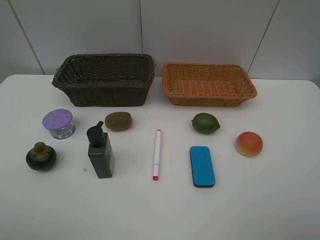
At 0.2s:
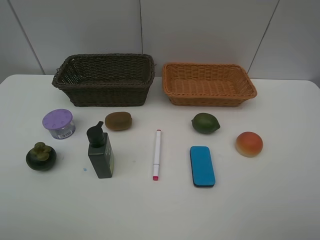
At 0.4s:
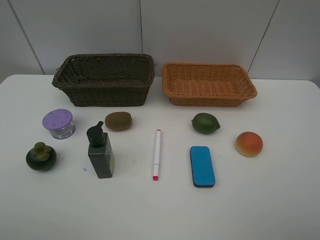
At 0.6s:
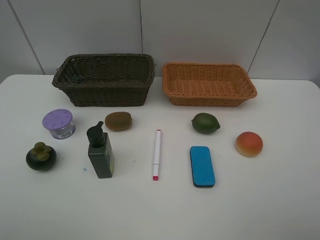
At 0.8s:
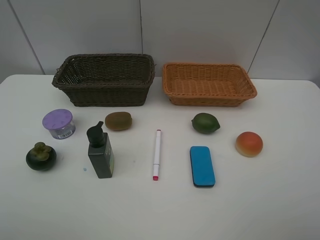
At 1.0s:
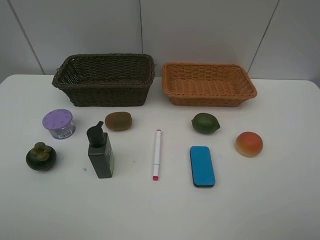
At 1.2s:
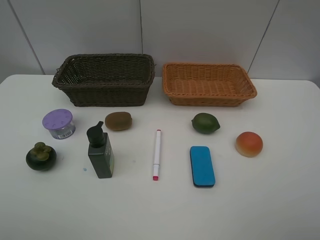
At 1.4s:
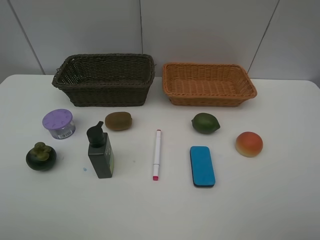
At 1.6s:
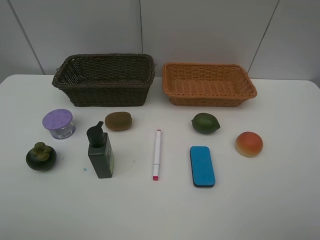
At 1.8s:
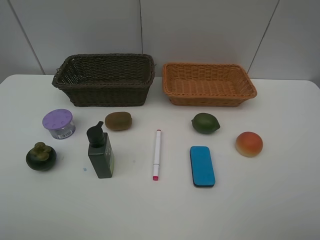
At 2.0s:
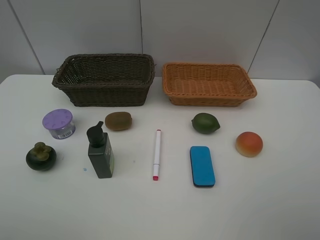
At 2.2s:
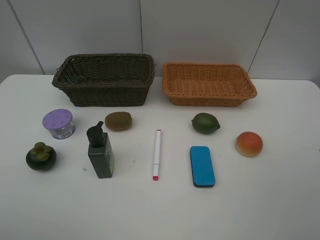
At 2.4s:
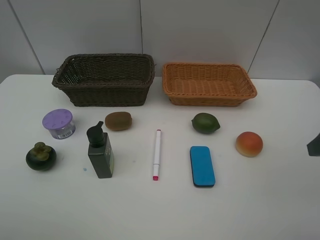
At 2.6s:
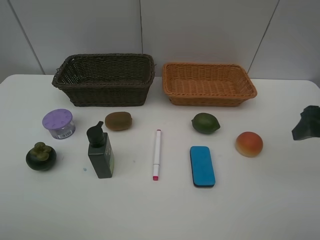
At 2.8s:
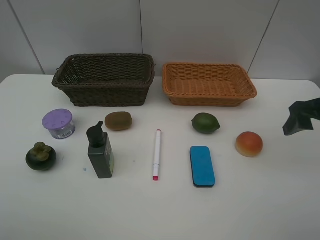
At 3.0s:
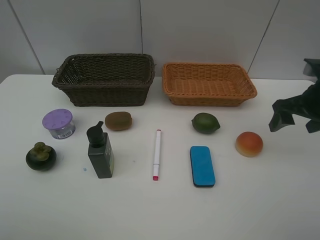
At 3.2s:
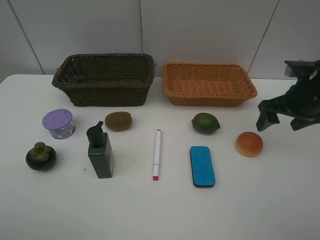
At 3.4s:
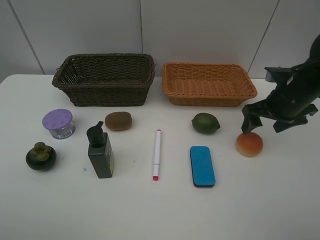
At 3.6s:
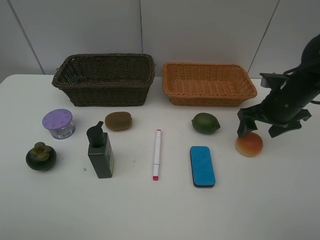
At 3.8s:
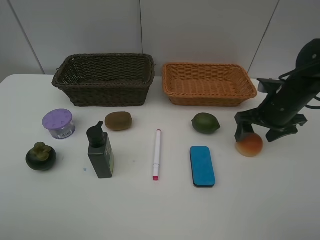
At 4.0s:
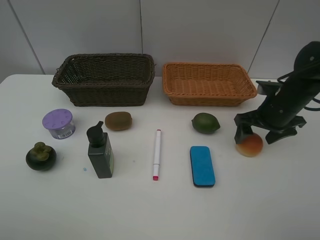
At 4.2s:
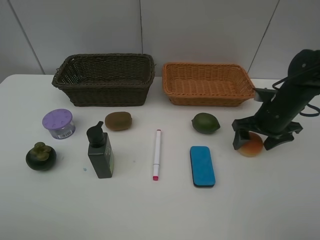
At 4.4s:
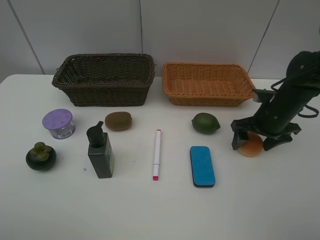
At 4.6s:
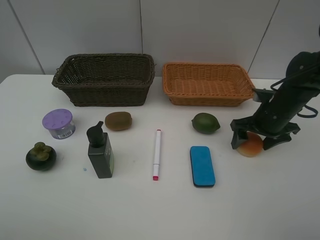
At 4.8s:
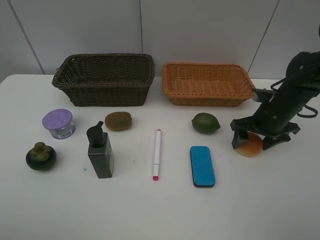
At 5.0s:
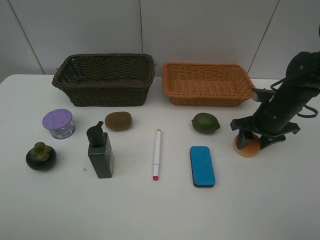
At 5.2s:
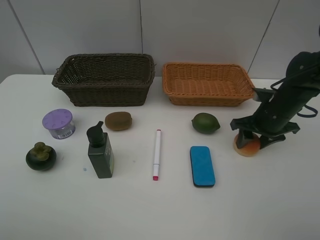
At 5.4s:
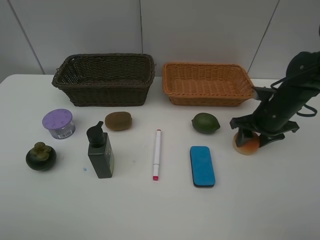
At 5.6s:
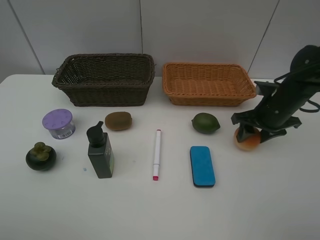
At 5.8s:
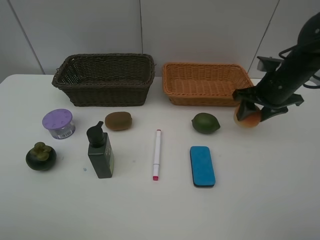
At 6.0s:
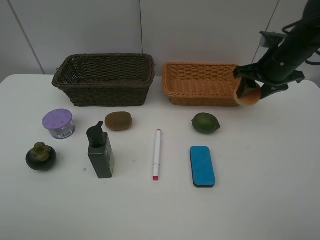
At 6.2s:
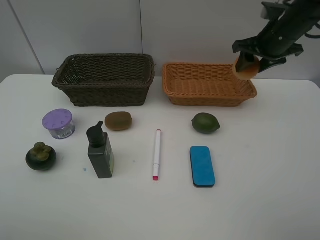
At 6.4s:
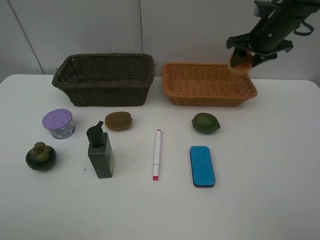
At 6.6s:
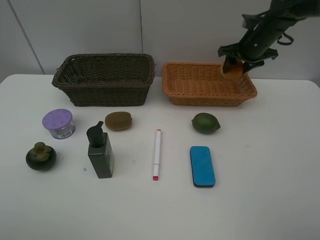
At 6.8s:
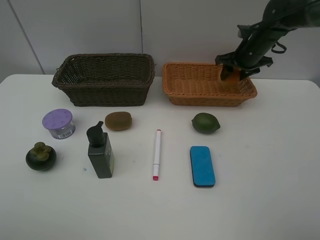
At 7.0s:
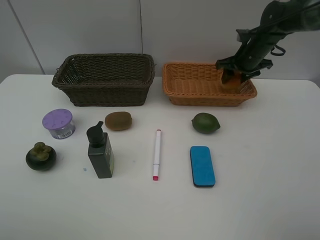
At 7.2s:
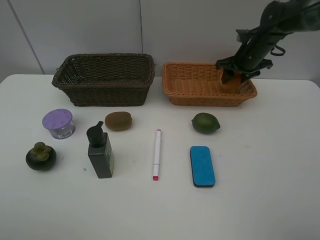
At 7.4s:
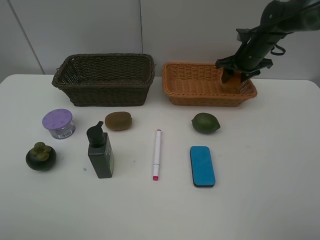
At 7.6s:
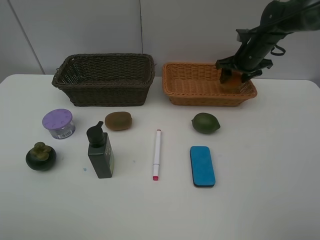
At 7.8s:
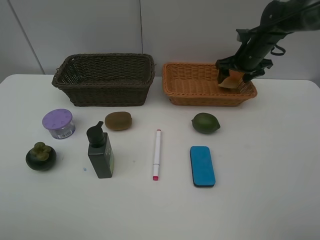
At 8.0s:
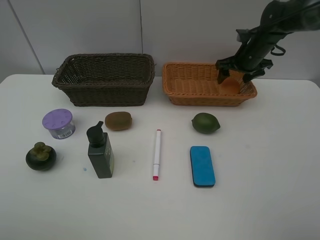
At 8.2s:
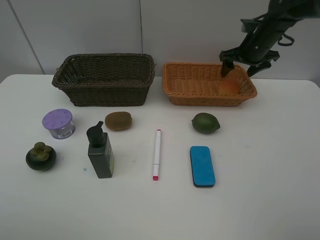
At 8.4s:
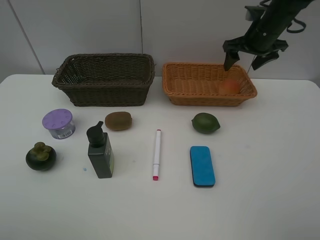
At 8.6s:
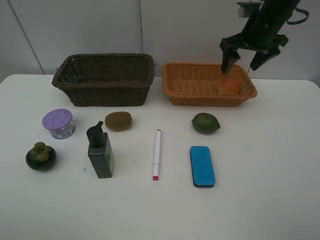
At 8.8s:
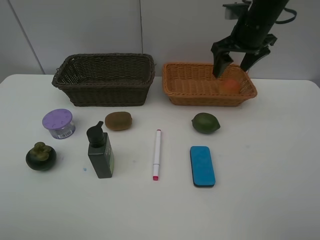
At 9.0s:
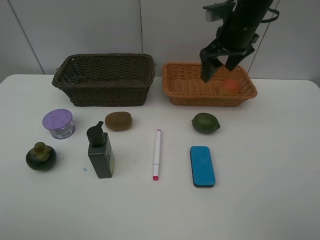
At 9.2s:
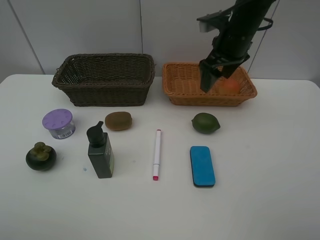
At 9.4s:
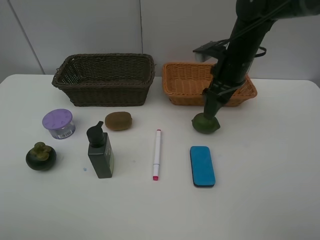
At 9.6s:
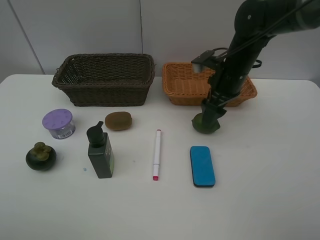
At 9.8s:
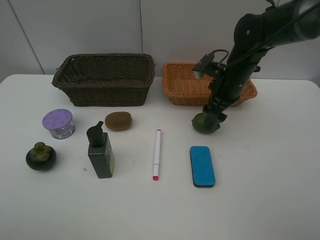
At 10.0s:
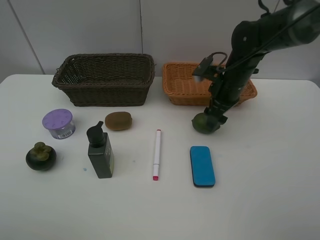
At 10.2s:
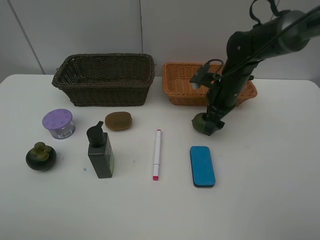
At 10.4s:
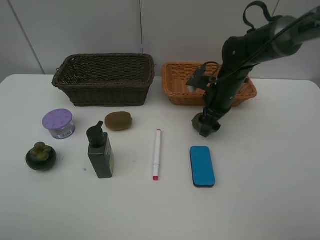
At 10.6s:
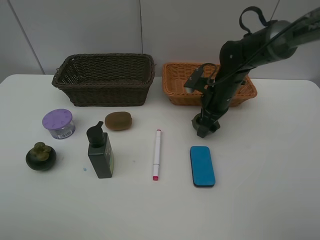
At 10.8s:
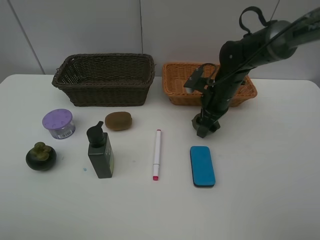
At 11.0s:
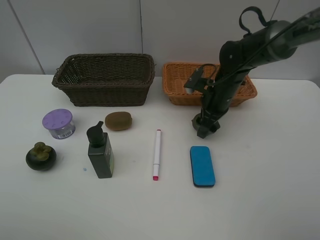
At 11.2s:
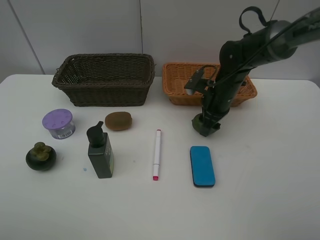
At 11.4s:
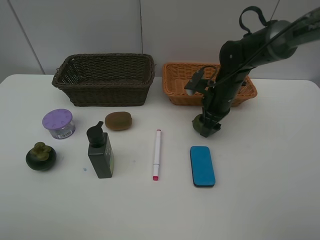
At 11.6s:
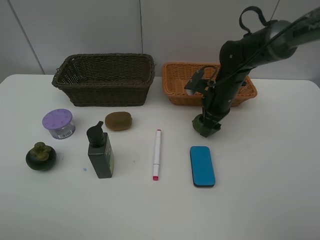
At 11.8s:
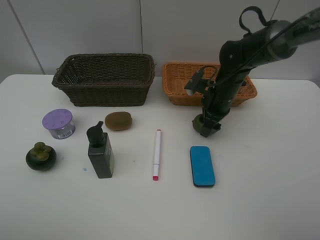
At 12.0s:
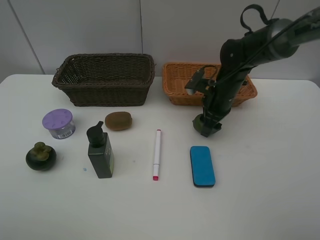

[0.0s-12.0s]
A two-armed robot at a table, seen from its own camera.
Task of the whole recording: Place multiple objects separately in different baskets.
Step, 0.0s to 5.6s: Pick up egg yolk pastry with right gripper.
Step, 5.8s to 8.2s: Place the egg yolk pastry in the light basket with right gripper.
0.0s to 1.6s: Neither gripper changes place.
1.6s to 3.0s: The right gripper heads forward, covering about 25 cm.
3.0s to 4.4s: The right gripper heads downward, covering some 10 cm.
4.4s to 6.0s: The right gripper moves upward and forward, roughly 10 cm, and closes up.
6.0s to 7.6s: The right gripper travels forward and downward by roughly 10 cm.
7.6s to 9.0s: The right gripper moves to the left, upward and backward, approximately 15 cm.
9.0s to 10.4s: The right gripper heads downward, covering some 15 cm.
10.4s to 12.0s: Both grippers stay about where they are.

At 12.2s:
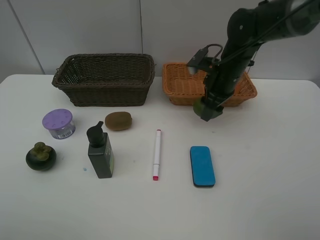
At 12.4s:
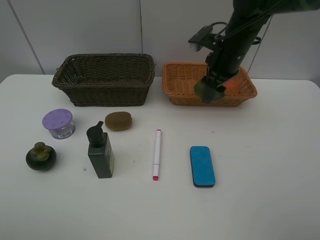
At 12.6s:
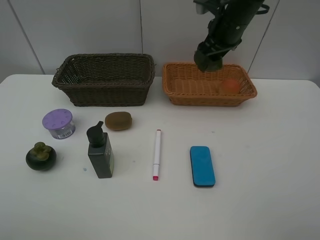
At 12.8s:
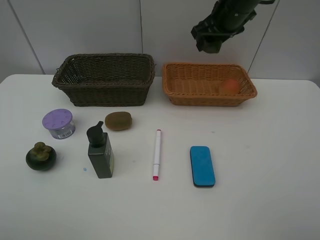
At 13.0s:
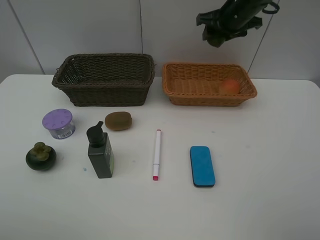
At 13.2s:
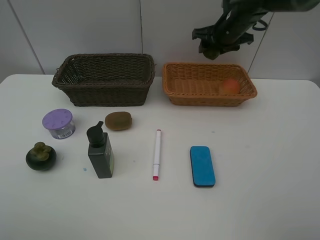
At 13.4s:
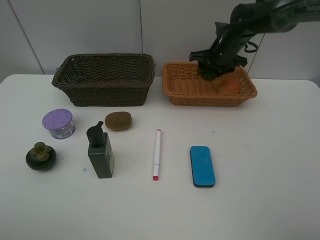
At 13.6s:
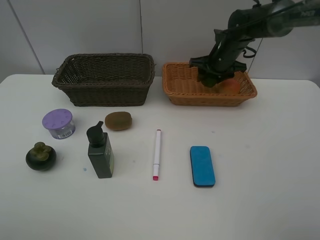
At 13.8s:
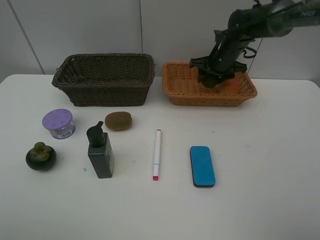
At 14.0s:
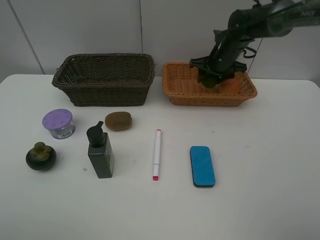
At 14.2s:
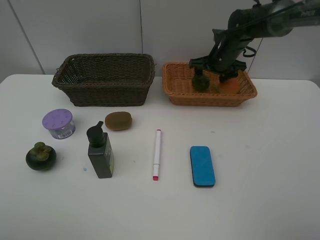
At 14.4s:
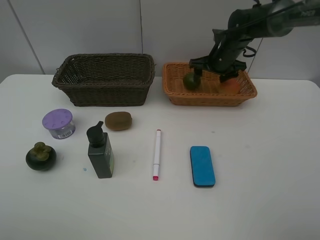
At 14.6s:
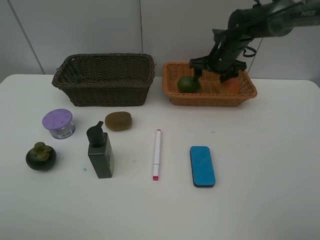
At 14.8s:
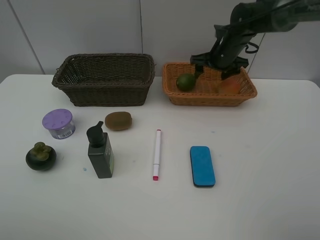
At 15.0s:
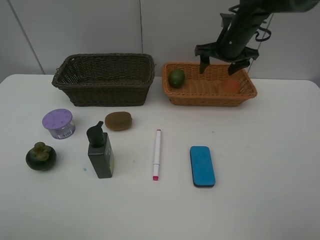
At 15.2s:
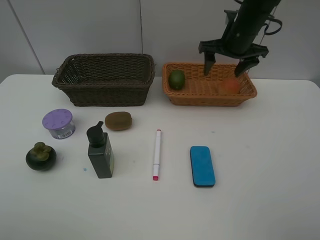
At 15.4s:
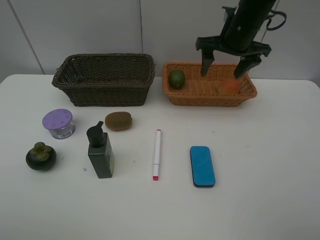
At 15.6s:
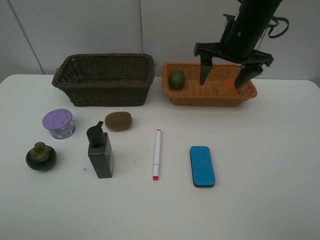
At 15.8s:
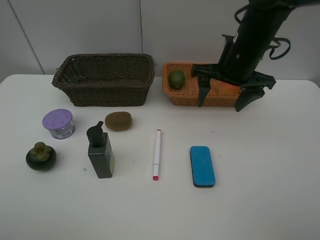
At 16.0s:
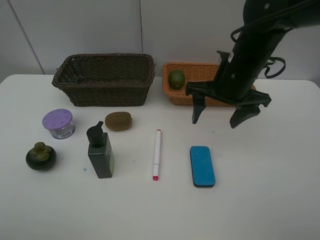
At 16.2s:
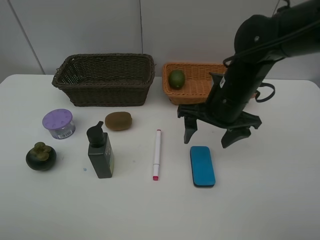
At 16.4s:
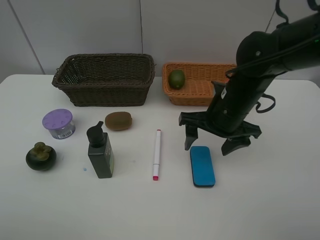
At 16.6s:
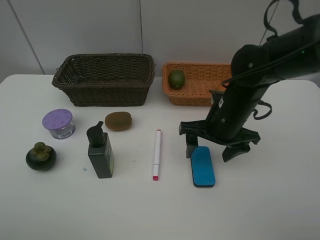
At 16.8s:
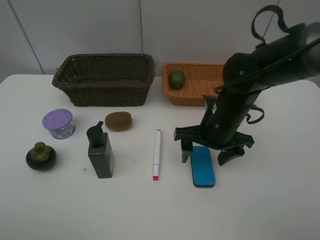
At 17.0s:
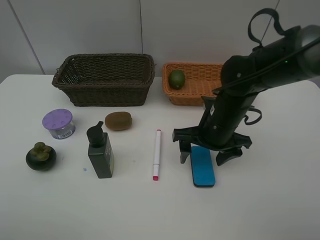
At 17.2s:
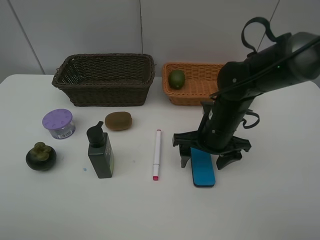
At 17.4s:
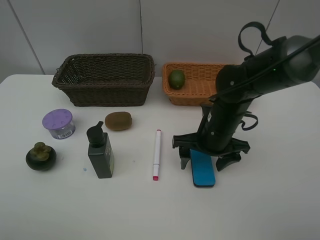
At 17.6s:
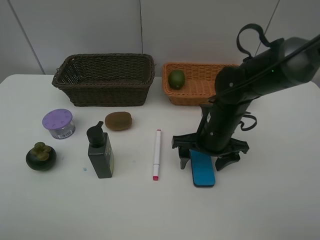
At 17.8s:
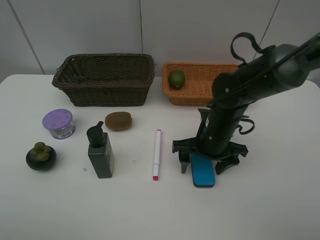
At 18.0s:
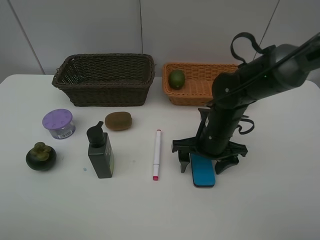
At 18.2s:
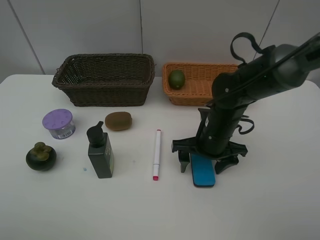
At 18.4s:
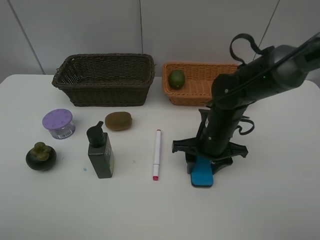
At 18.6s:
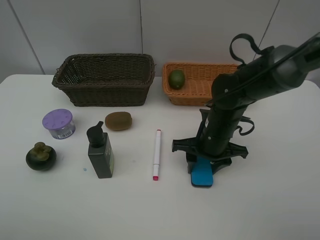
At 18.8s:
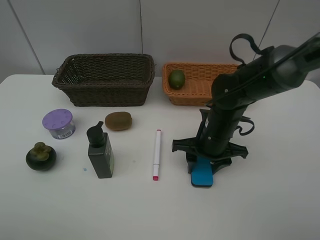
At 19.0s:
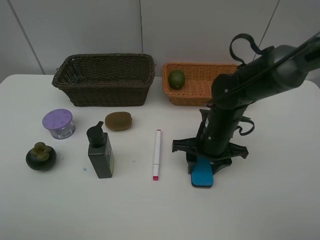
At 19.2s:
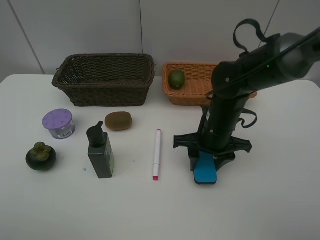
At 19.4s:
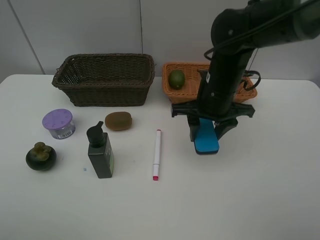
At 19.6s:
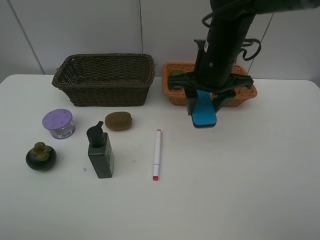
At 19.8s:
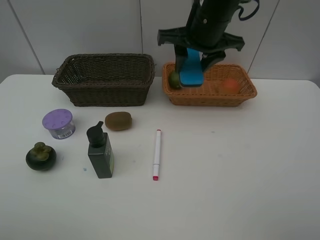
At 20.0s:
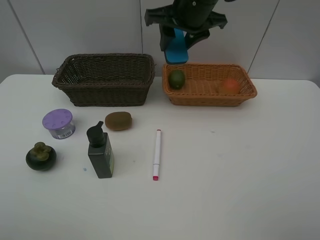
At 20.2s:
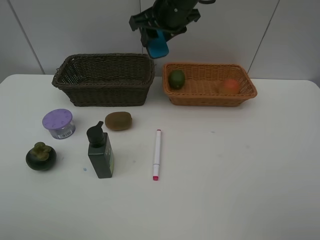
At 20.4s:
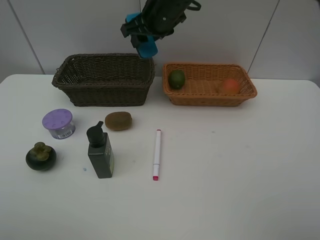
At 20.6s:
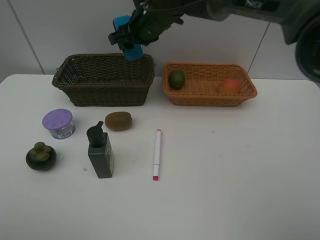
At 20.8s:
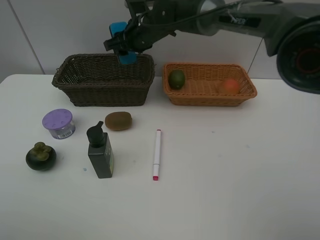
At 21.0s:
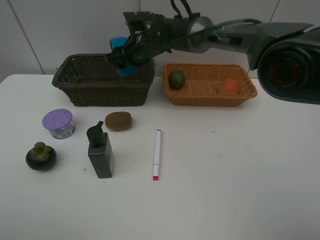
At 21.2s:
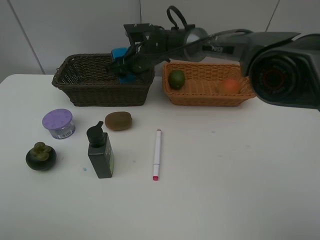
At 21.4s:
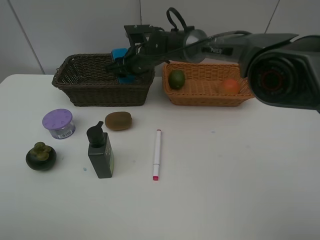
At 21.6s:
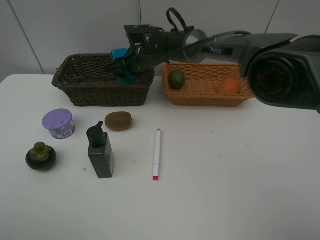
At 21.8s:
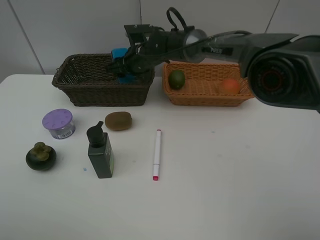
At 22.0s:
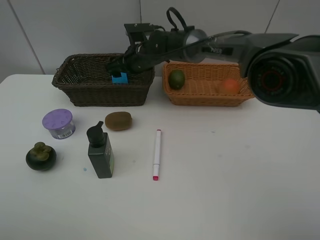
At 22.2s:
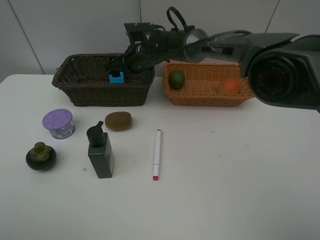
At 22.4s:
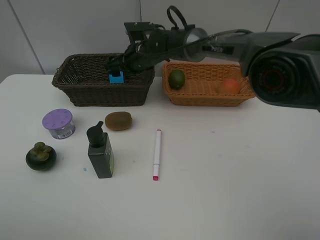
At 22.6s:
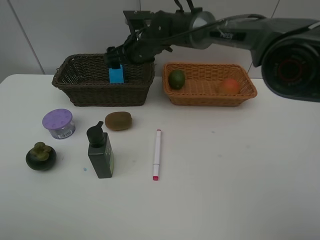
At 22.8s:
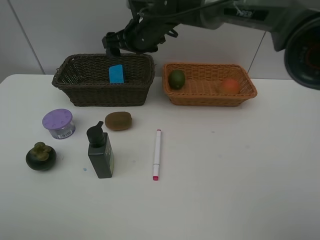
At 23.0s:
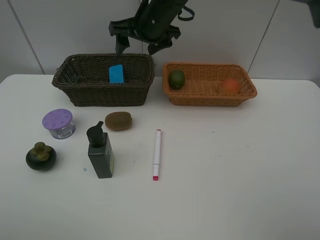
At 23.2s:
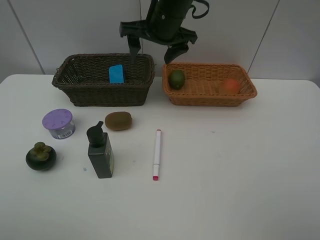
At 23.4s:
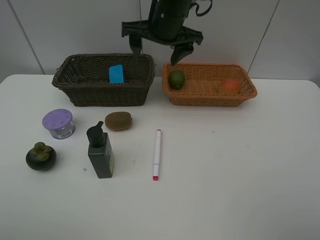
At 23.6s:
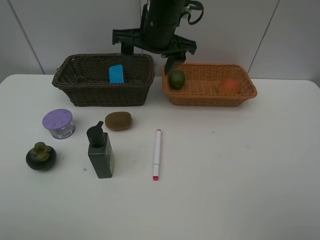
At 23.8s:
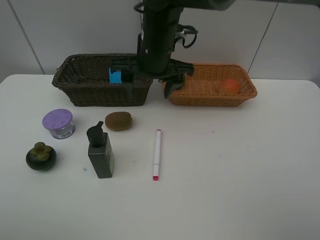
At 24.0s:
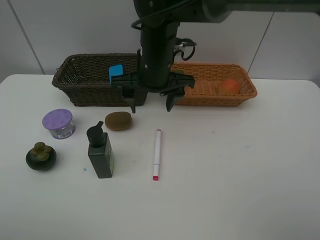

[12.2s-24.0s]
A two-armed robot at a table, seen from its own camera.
Task of the whole recording: Place multiple objects separately in different baskets.
Step, 12.2s to 14.4s: Place the lime in the light basket with right gripper.
Step, 14.6s to 19.2s: Pick up blackboard eraser with right gripper.
Step, 19.4s to 22.6s: Place the blackboard eraser in the dark basket with right gripper.
12.2s to 13.6s: The right gripper heads forward, covering roughly 10 cm, and goes upward and returns, roughly 10 cm each way.
13.6s to 15.2s: The right gripper shifts about 10 cm upward and backward.
15.2s to 16.6s: The right gripper heads backward and downward, covering approximately 20 cm.
16.6s to 18.2s: The grippers stay close to where they were, moving slightly.
18.2s to 19.6s: The right gripper heads upward, covering roughly 15 cm, and closes its fingers.
19.6s to 21.0s: The right gripper is displaced forward, to the left and downward by about 20 cm.
21.0s to 22.6s: The right gripper opens.
22.6s to 24.0s: The right gripper goes roughly 15 cm backward.
